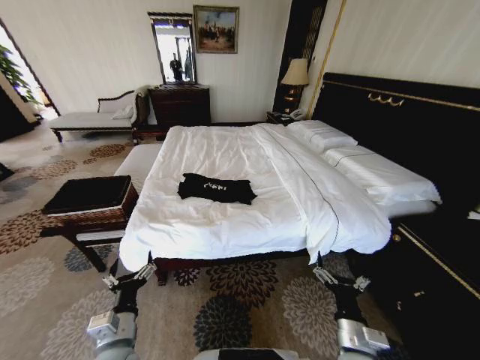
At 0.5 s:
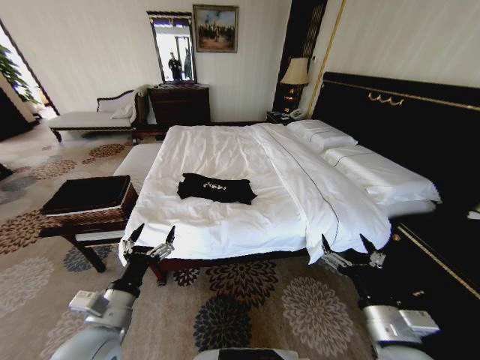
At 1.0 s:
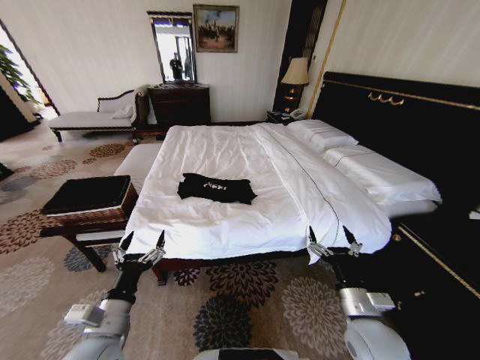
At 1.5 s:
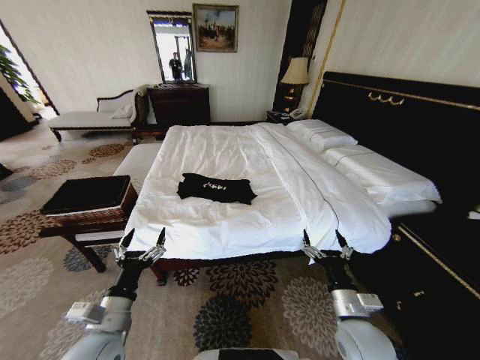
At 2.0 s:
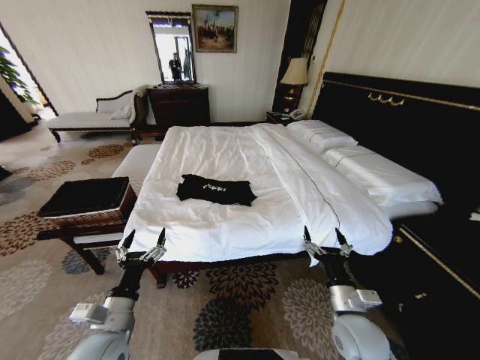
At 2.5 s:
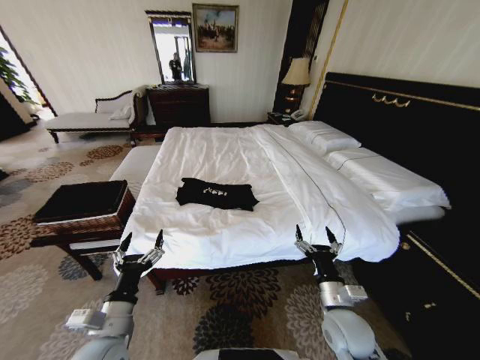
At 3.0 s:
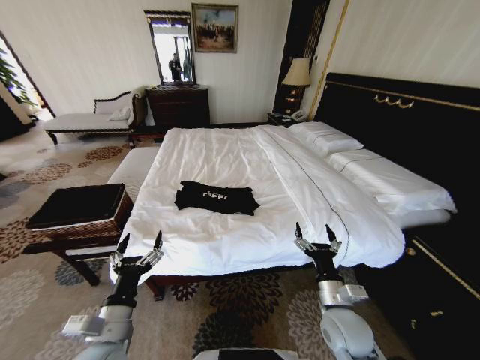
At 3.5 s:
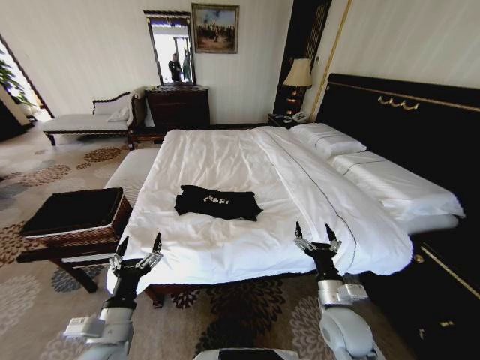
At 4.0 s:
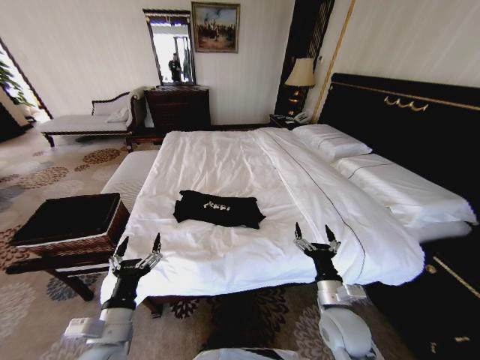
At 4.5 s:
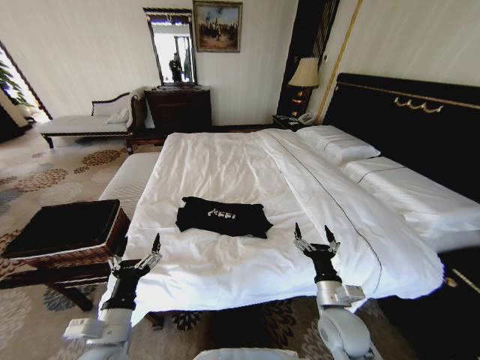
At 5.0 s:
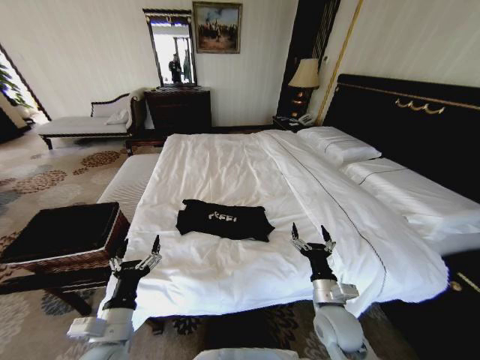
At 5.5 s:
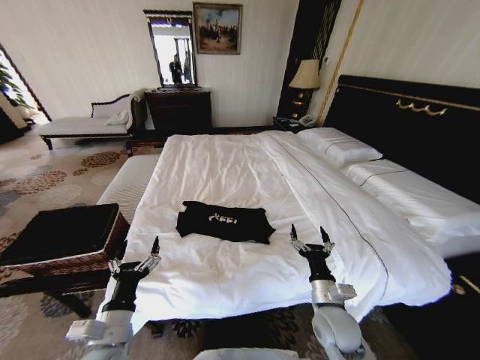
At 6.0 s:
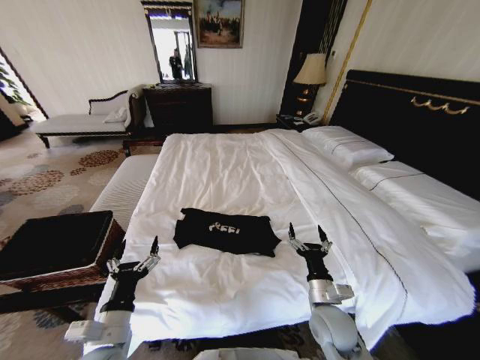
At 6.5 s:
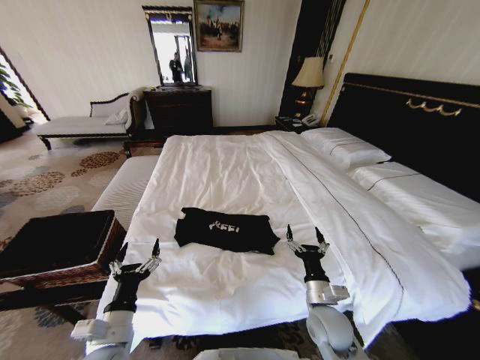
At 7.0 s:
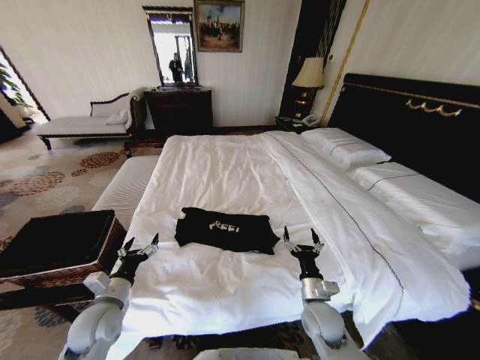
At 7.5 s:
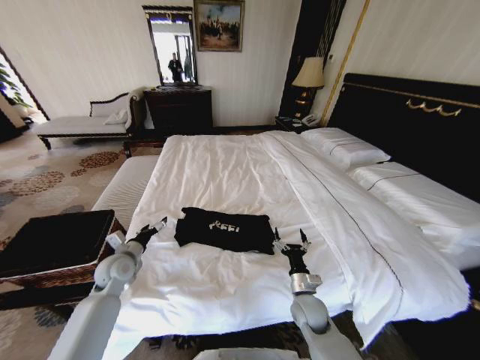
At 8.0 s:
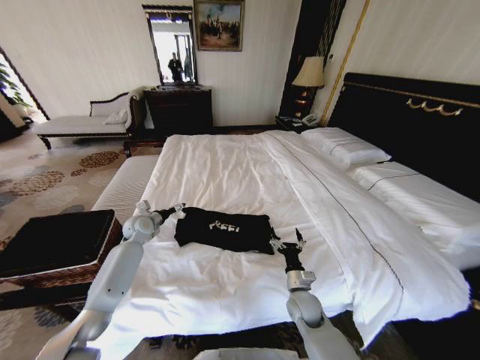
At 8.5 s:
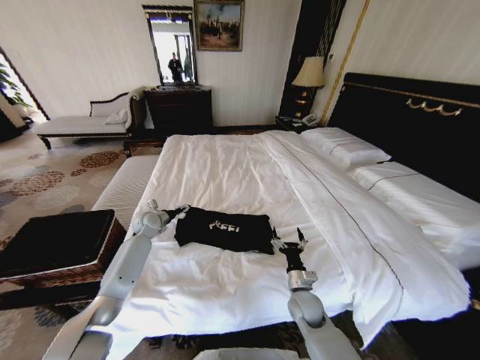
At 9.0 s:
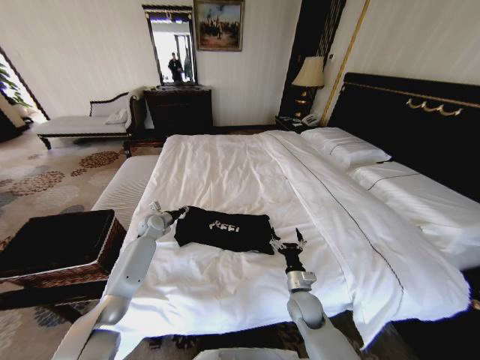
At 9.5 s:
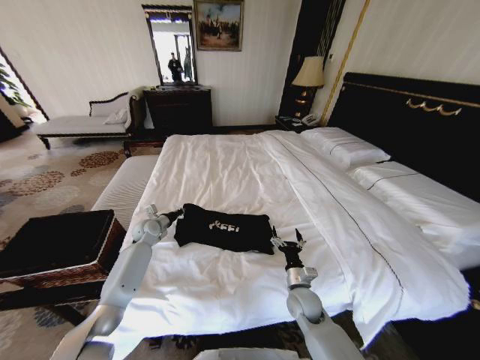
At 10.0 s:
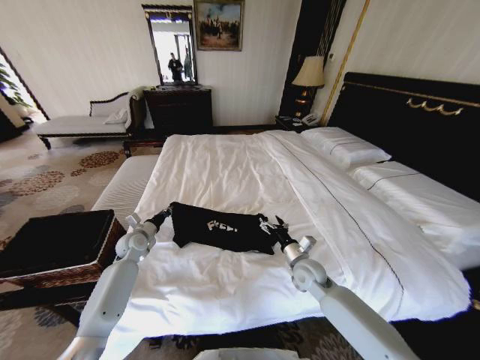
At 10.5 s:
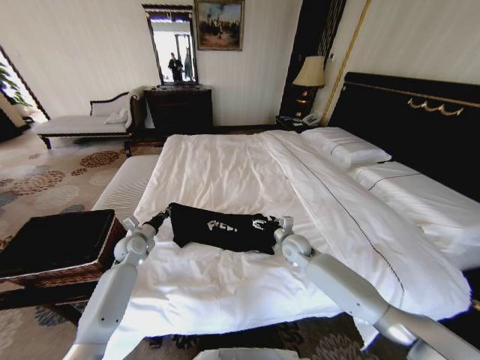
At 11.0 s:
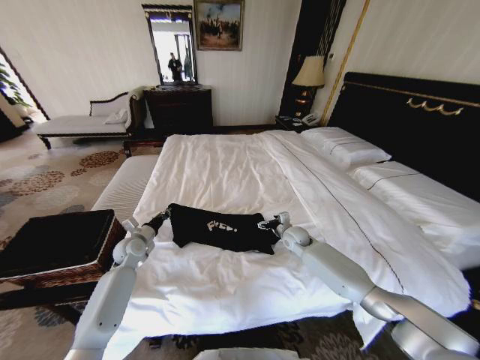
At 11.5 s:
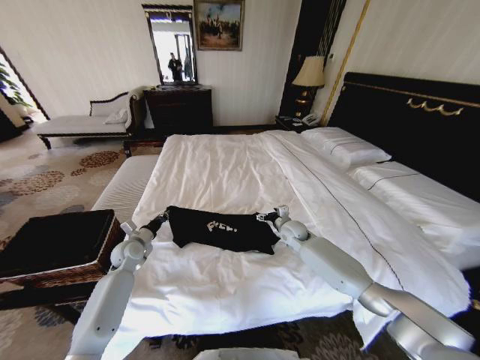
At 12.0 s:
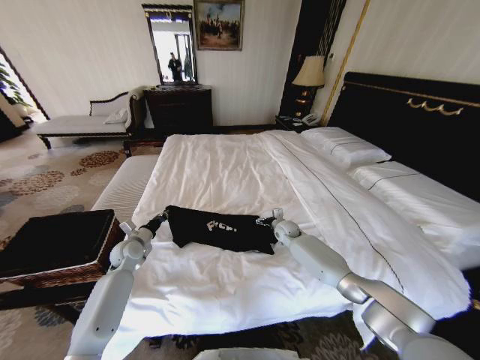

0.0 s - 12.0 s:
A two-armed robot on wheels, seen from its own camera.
Task of the whole recording: Fold the clothes on the bed and place them into the basket.
6.0 s - 8.0 s: The left gripper heads forward, covering approximately 35 cm, while the right gripper is displaced downward and forward by approximately 10 cm.
8.0 s - 10.0 s: The right gripper is displaced forward and upward by some 10 cm; the left gripper moves about 5 cm, and closes.
10.0 s - 12.0 s: The right gripper travels forward by about 20 cm.

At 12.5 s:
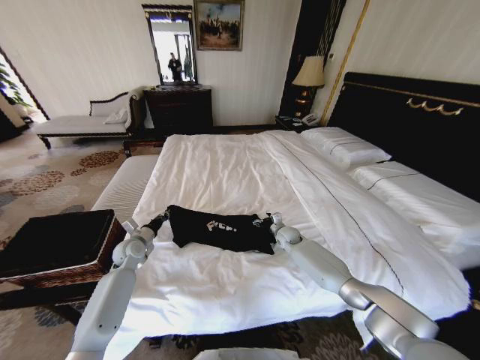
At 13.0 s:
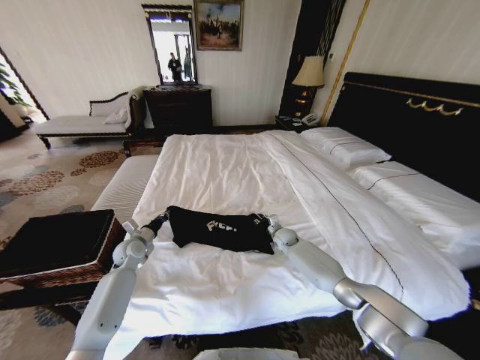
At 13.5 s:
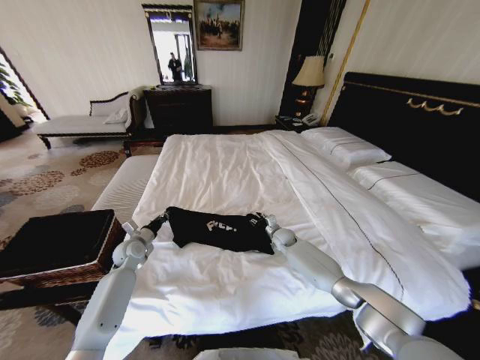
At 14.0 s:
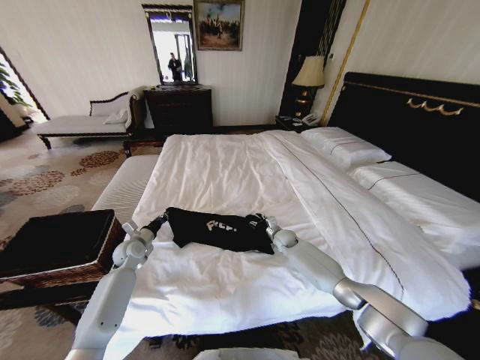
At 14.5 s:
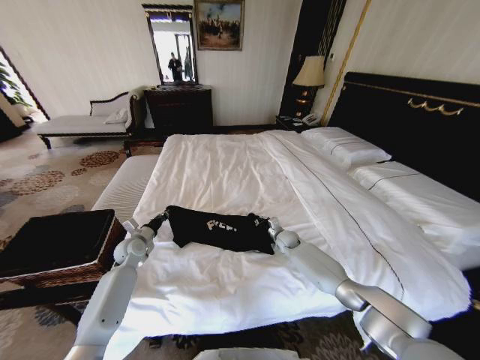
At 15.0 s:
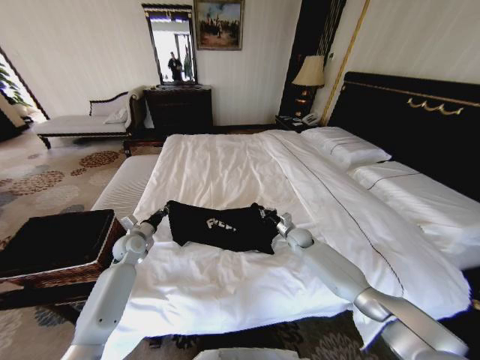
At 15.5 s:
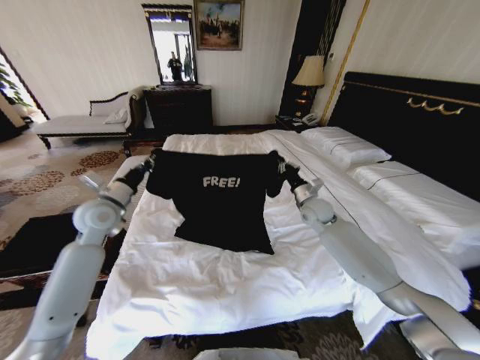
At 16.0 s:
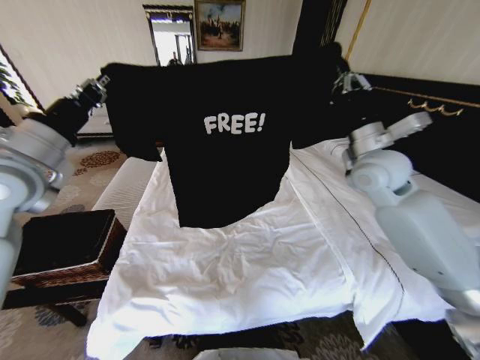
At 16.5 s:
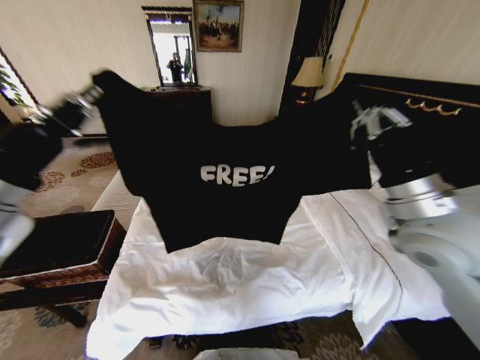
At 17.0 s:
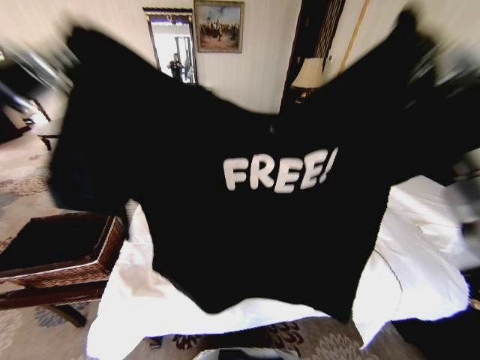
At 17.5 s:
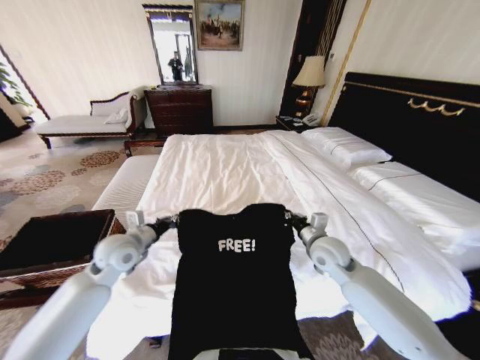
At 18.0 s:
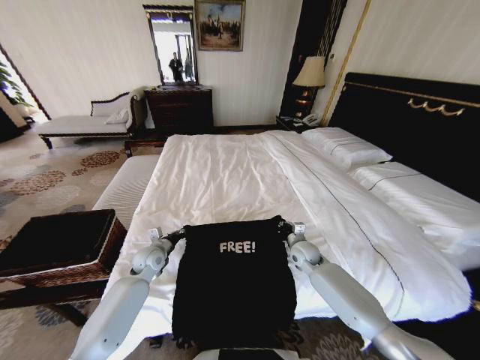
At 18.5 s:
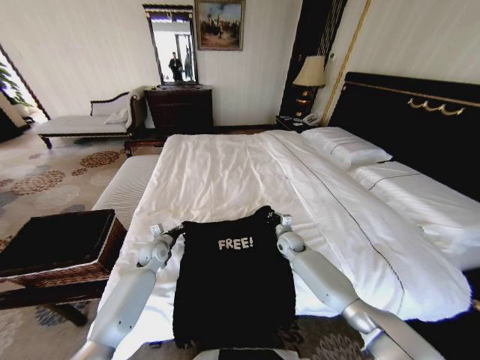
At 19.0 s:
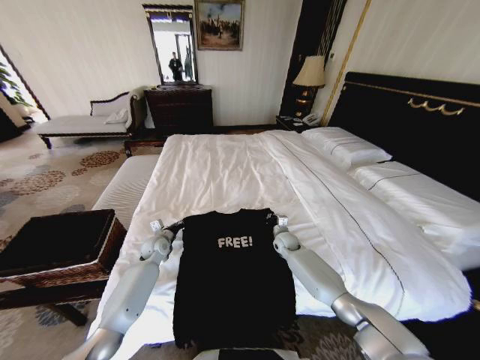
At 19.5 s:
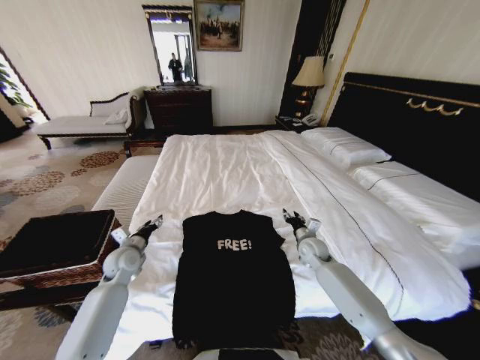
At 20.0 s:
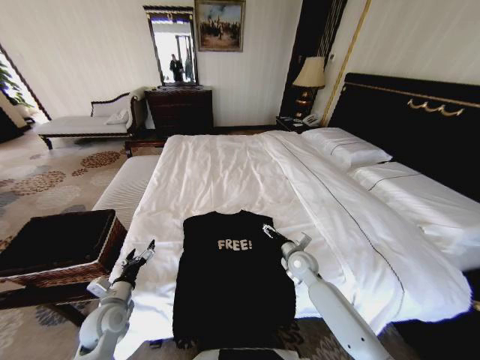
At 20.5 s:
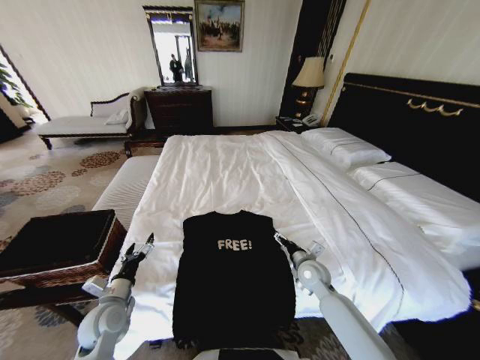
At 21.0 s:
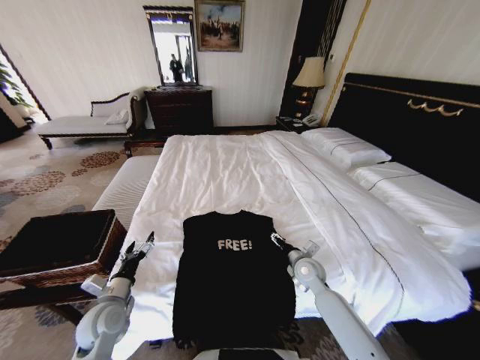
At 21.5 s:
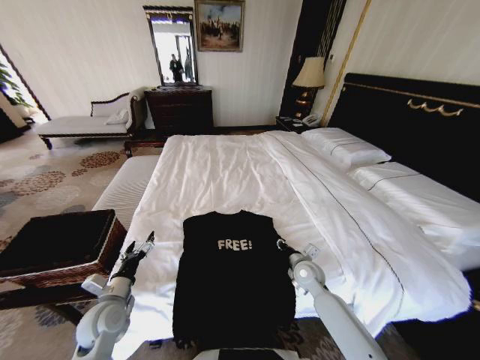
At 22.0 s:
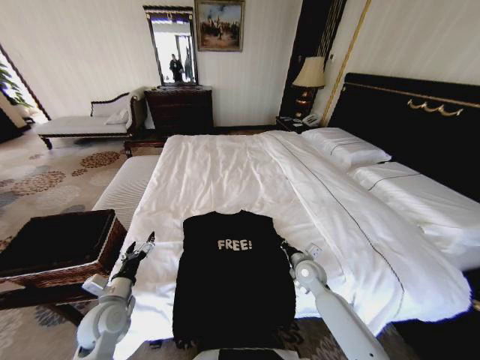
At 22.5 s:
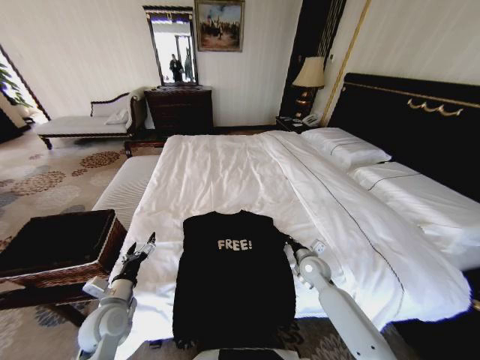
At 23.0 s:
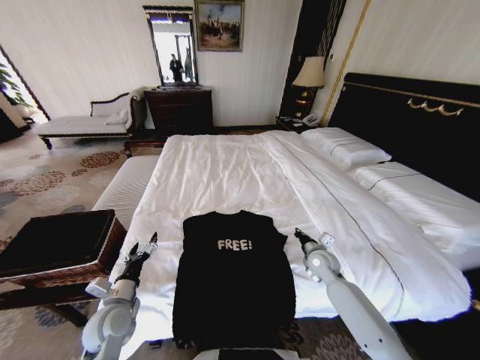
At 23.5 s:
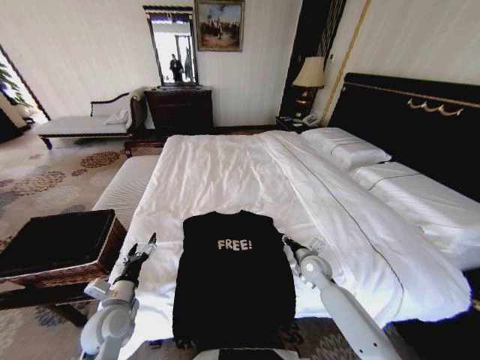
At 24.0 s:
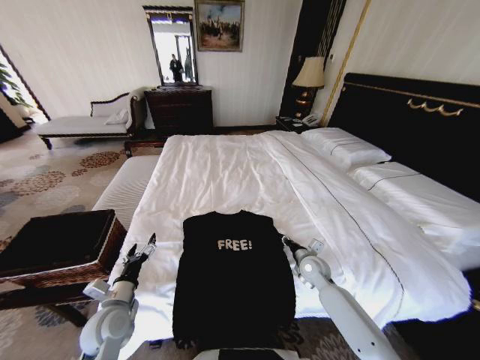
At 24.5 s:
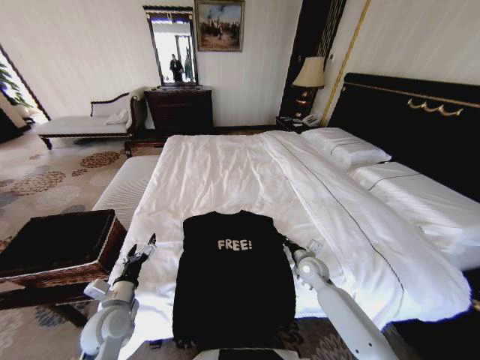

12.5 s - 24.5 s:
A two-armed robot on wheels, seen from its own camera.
Task of the whole recording: Fold the clothes on the bed and place them into the basket.
12.5 s - 14.5 s: The right gripper closes its fingers.
14.5 s - 16.5 s: The grippers both shift upward and backward by some 50 cm.
16.5 s - 18.5 s: The grippers both shift downward and forward by roughly 40 cm.
18.5 s - 20.5 s: The right gripper travels backward by roughly 15 cm, and opens up; the left gripper moves backward, about 20 cm, and opens.
20.5 s - 22.5 s: The right gripper closes its fingers.

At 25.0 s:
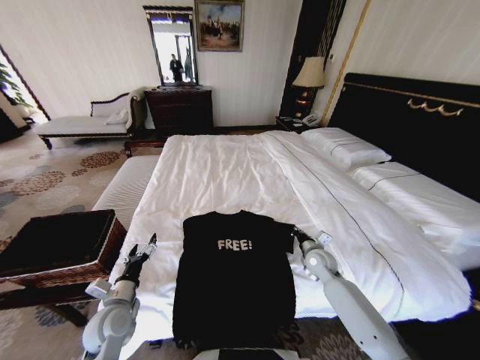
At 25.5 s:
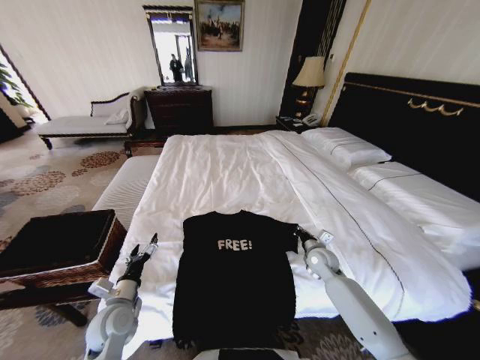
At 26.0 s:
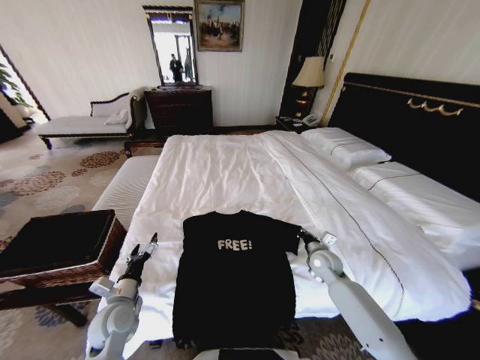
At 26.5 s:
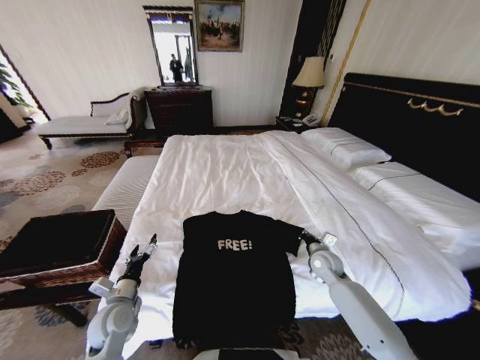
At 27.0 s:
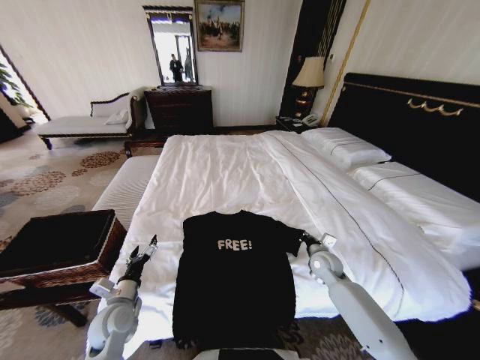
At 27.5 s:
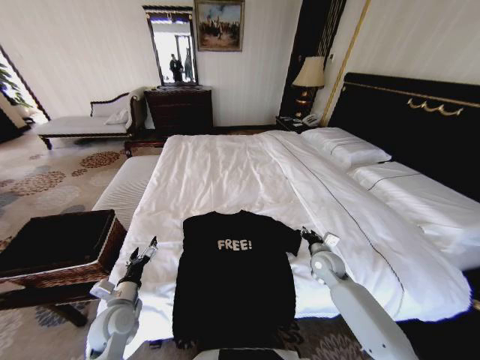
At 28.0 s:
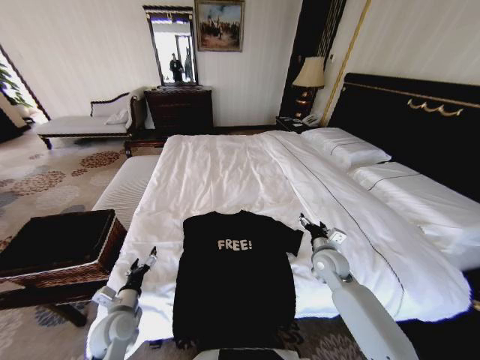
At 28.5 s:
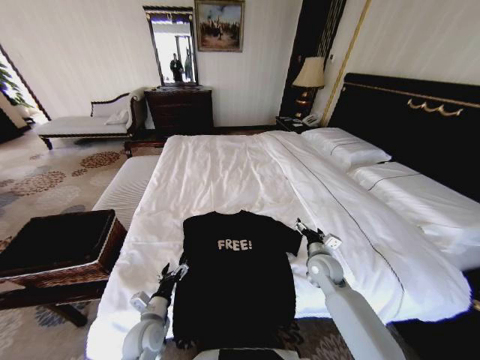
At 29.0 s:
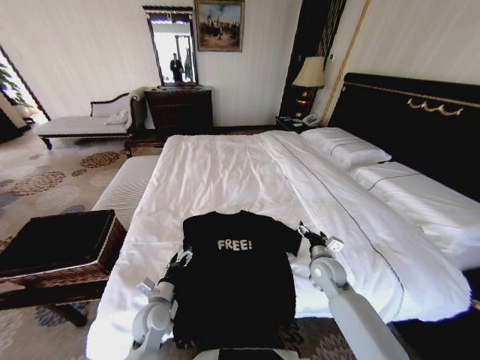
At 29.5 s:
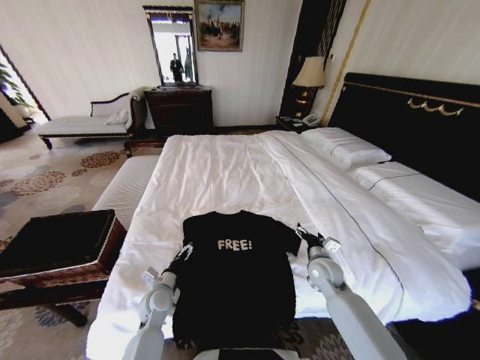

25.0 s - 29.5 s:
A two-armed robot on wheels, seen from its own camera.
Task of the whole recording: Fold the clothes on the bed and place them into the basket.
25.0 s - 27.0 s: The grippers stay close to where they were, moving slightly.
27.0 s - 29.5 s: The right gripper opens its fingers; the left gripper shifts about 10 cm to the right, downward and forward.
